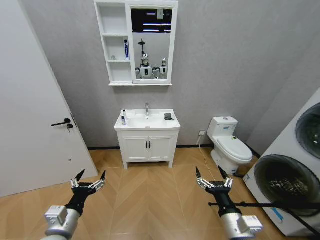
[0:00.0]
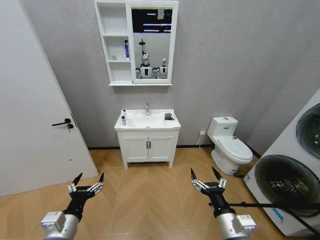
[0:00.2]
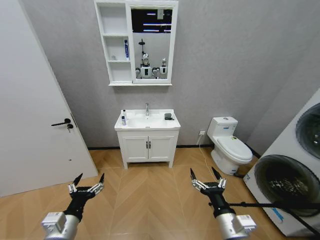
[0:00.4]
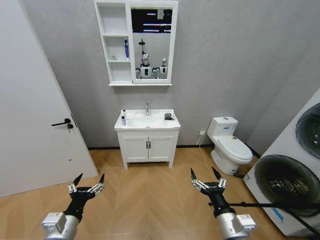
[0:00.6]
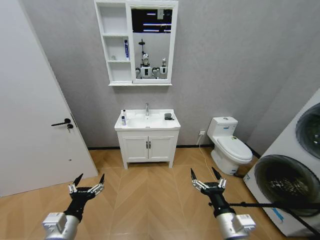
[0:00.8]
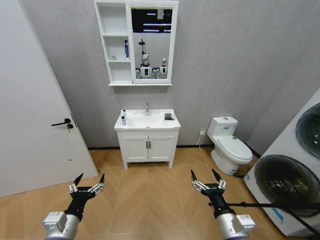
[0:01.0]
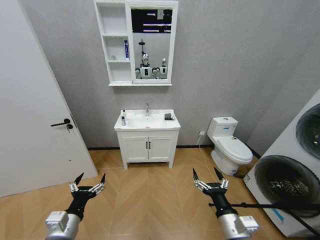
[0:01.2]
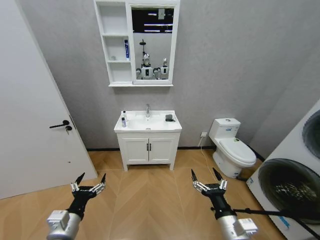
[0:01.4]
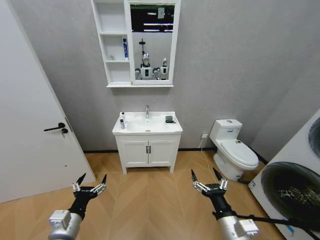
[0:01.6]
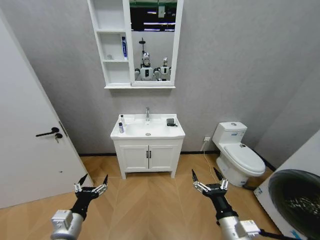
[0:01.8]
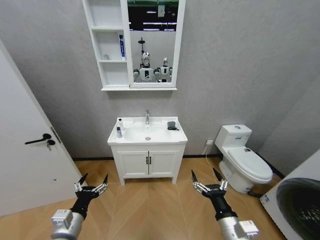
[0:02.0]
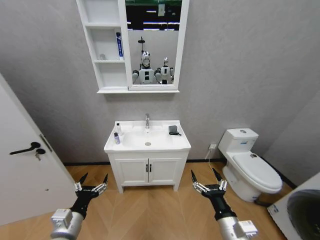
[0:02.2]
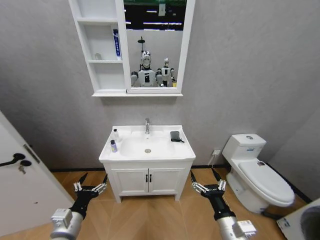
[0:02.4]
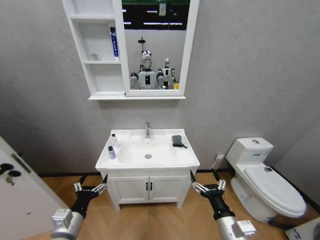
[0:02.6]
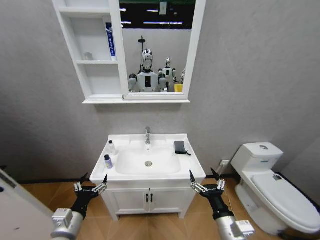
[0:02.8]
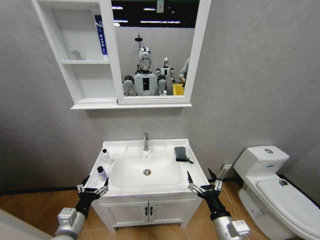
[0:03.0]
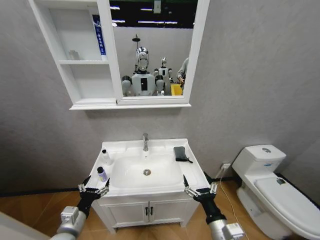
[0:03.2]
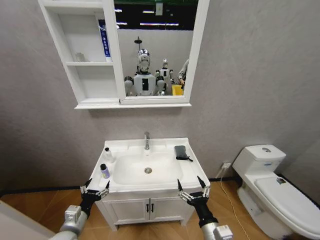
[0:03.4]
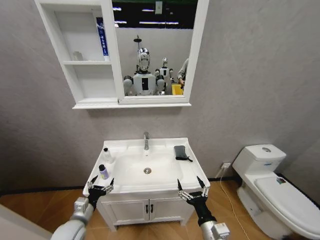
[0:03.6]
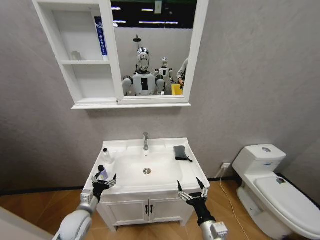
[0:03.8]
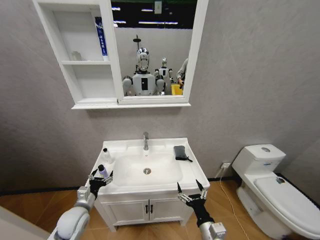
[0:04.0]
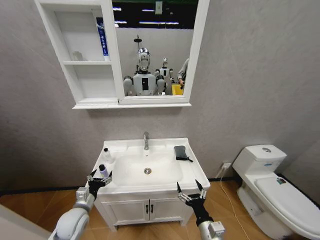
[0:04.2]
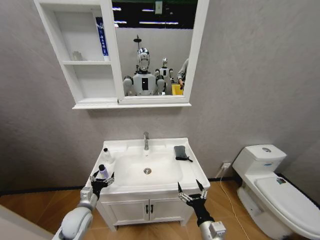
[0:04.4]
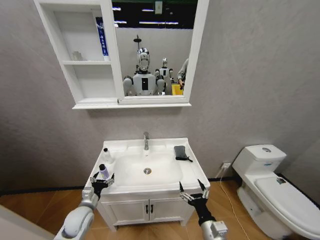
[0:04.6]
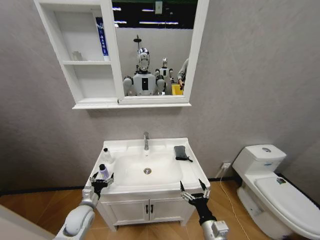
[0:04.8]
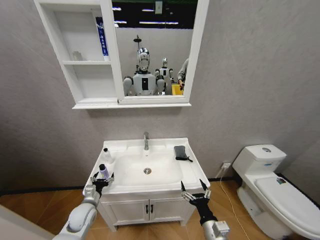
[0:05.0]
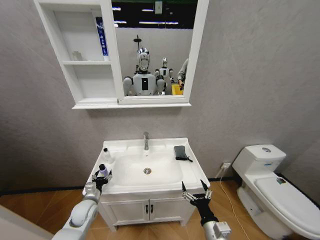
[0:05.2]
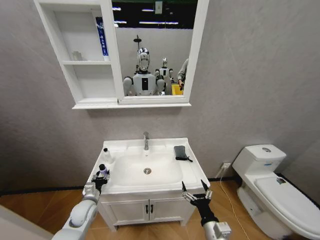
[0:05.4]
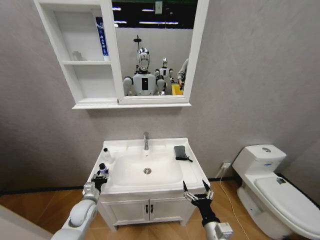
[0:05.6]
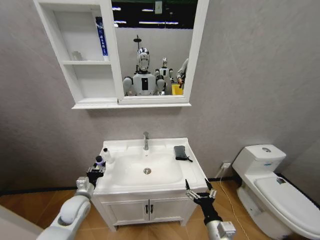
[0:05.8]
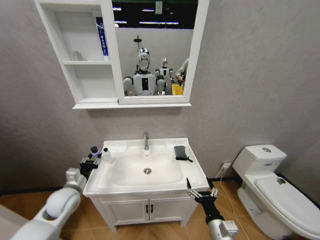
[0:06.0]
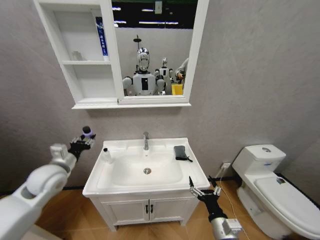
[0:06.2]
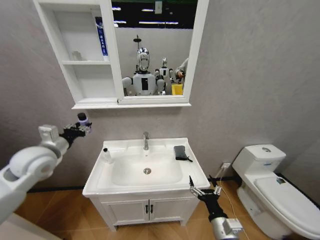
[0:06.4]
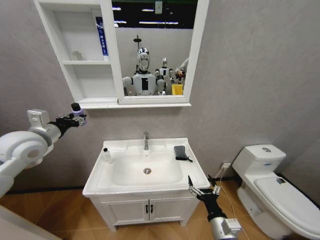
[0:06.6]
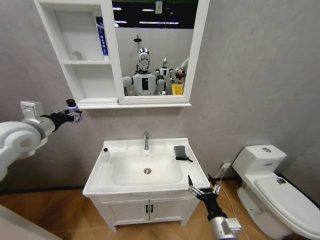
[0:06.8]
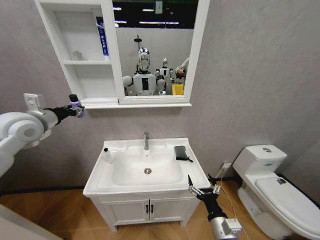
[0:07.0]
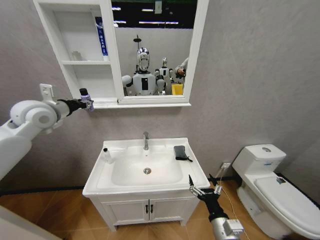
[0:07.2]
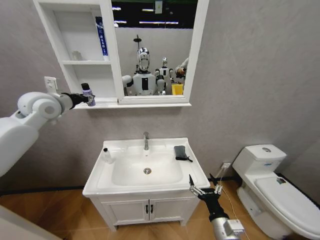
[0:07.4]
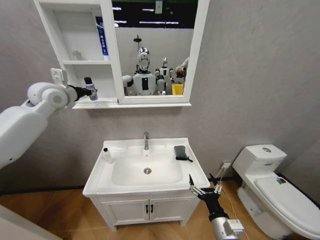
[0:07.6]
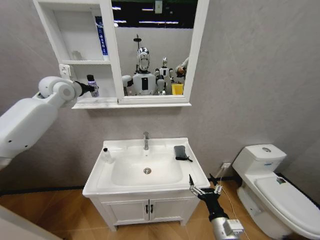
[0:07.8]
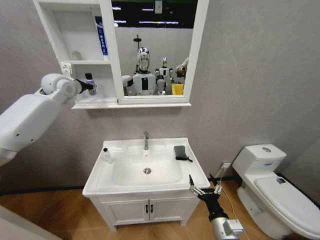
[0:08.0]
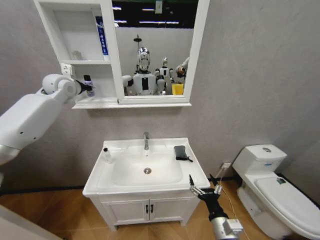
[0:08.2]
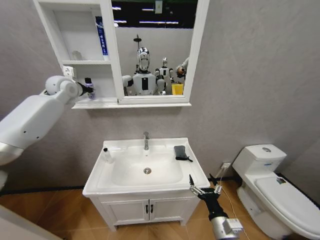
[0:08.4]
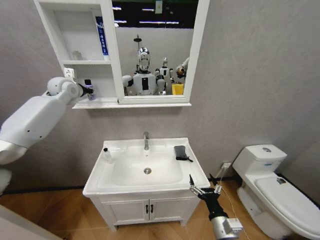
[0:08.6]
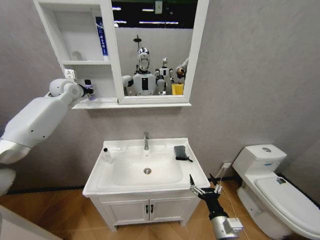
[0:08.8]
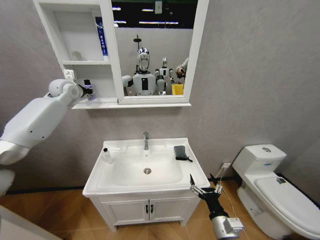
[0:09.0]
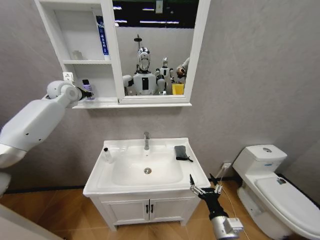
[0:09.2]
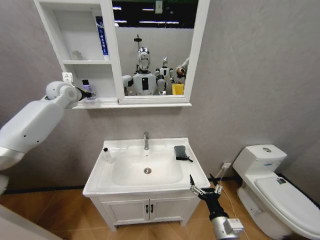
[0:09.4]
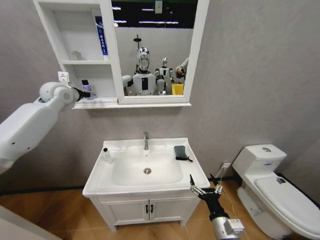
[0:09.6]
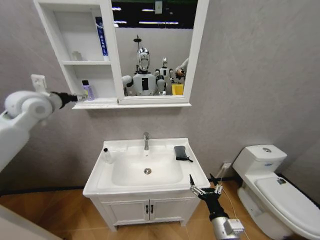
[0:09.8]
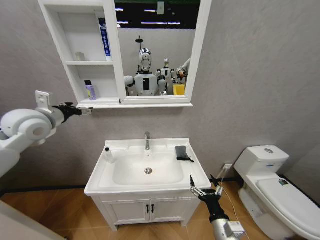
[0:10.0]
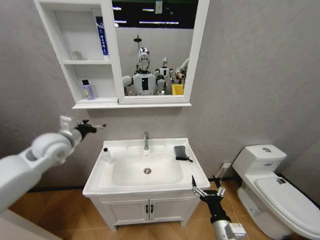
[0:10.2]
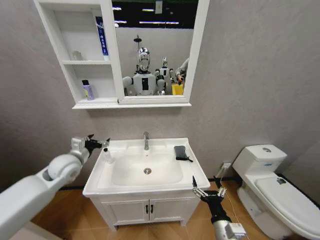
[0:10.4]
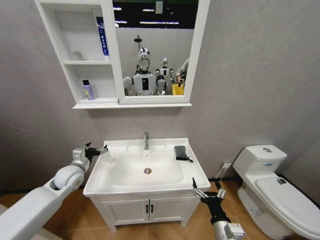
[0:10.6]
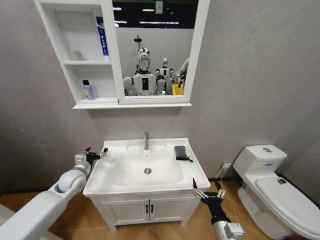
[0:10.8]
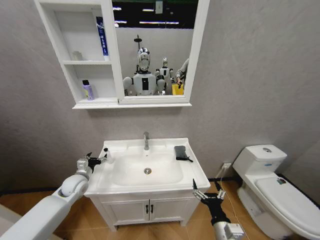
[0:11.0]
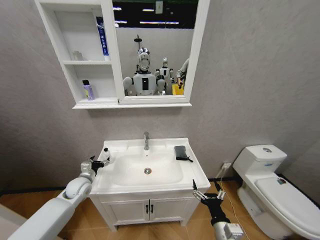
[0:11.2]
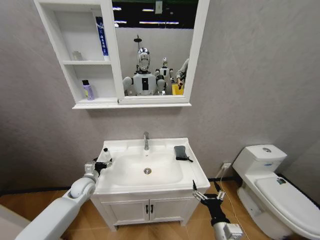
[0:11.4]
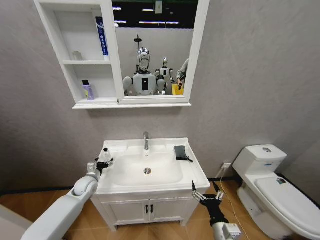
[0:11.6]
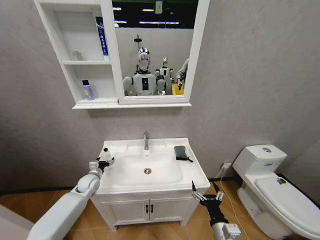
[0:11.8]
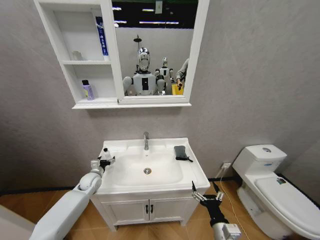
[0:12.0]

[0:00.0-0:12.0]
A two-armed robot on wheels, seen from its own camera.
Task of the whole recording: Move facial cleanser and shampoo from washbasin to cabinet, then wipe washbasin with towel.
0:03.0 to 0:04.4: The left gripper goes approximately 10 cm forward and downward, while the right gripper heads downward, covering roughly 5 cm.
0:04.4 to 0:06.0: The left gripper moves upward, approximately 5 cm, and closes.
0:06.0 to 0:07.6: The left gripper is displaced upward and forward by about 40 cm.
0:07.6 to 0:09.0: The left gripper travels forward by approximately 10 cm.
0:09.0 to 0:10.4: The left gripper shifts about 30 cm backward and downward, and opens up.
0:10.4 to 0:12.0: The left gripper is displaced downward by some 20 cm.

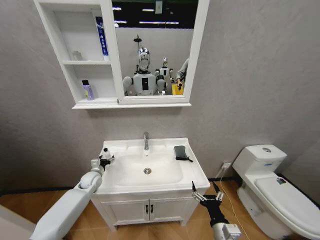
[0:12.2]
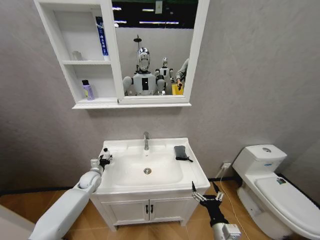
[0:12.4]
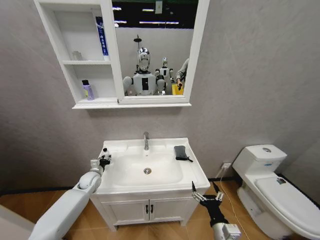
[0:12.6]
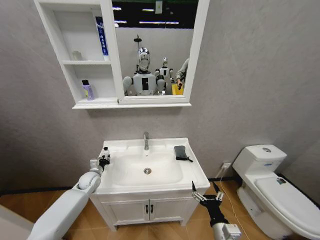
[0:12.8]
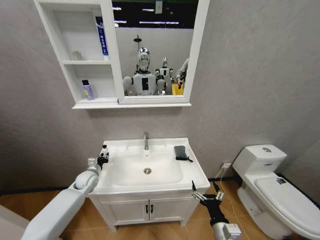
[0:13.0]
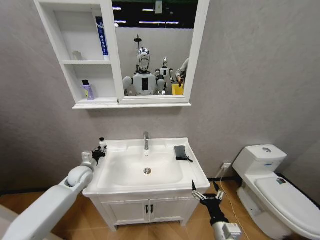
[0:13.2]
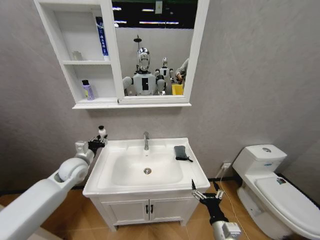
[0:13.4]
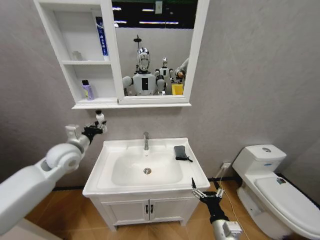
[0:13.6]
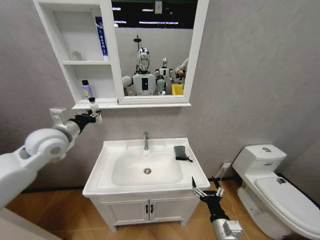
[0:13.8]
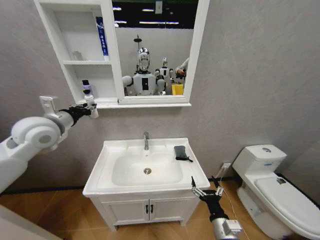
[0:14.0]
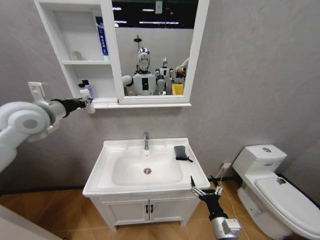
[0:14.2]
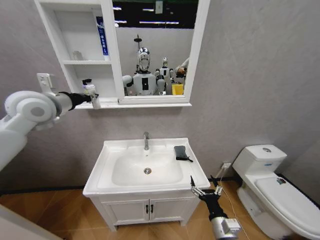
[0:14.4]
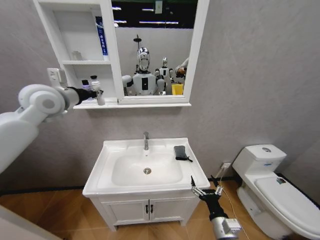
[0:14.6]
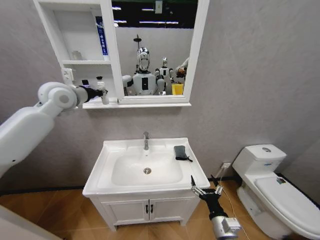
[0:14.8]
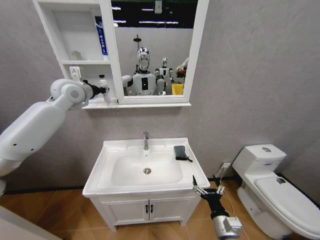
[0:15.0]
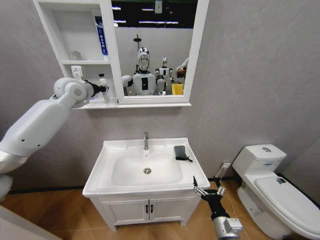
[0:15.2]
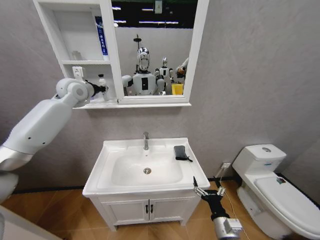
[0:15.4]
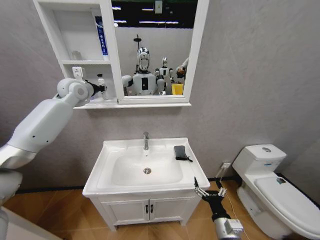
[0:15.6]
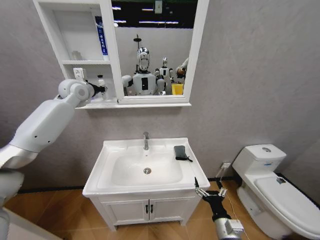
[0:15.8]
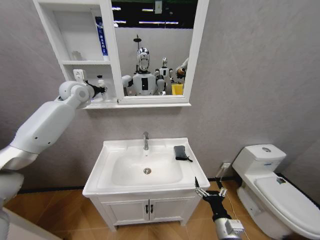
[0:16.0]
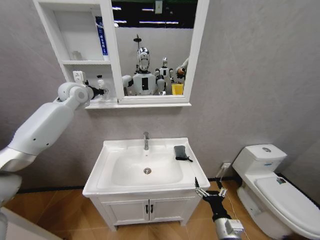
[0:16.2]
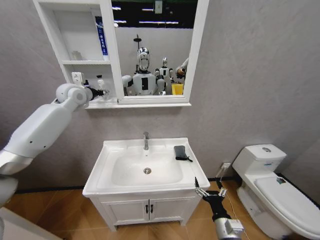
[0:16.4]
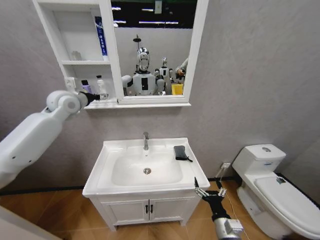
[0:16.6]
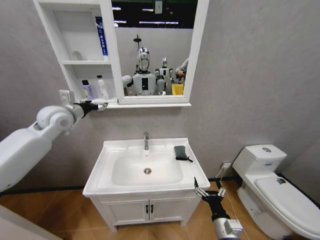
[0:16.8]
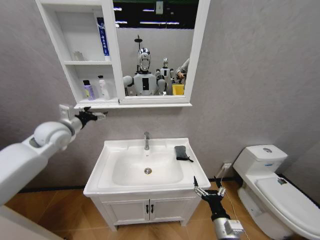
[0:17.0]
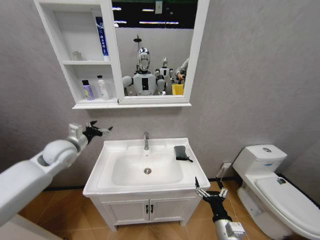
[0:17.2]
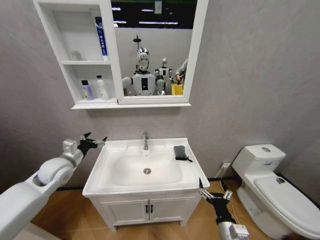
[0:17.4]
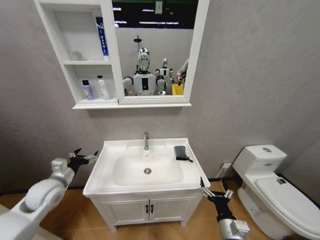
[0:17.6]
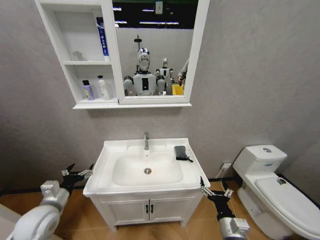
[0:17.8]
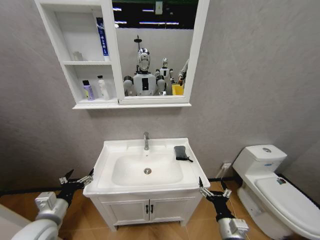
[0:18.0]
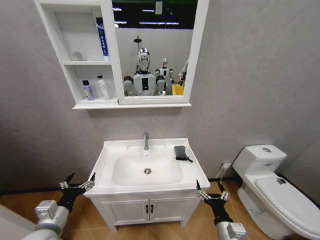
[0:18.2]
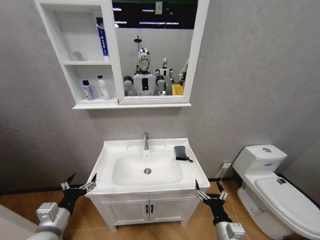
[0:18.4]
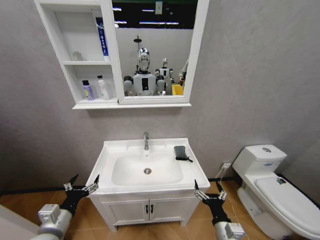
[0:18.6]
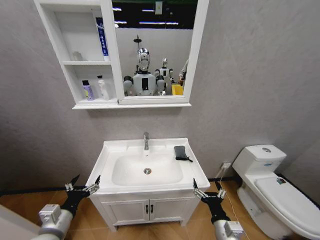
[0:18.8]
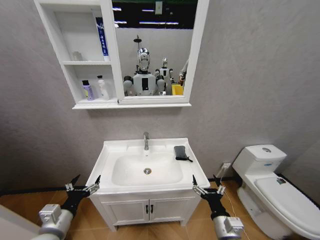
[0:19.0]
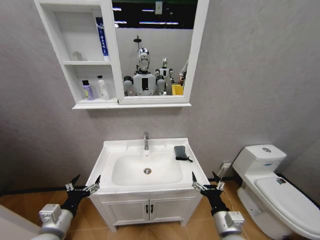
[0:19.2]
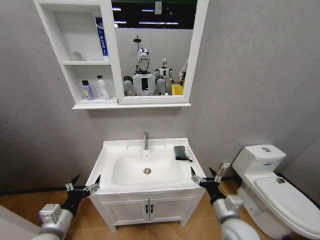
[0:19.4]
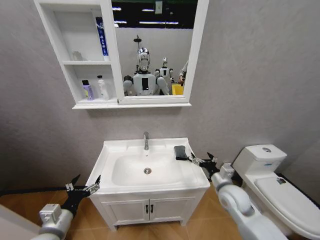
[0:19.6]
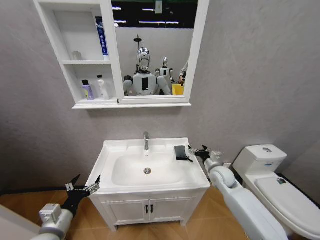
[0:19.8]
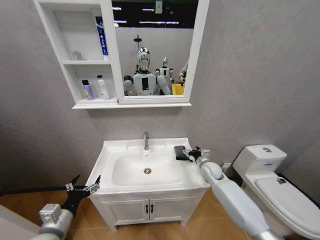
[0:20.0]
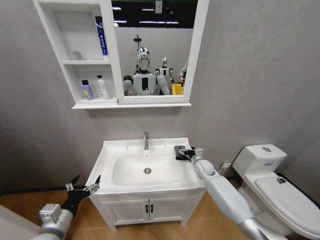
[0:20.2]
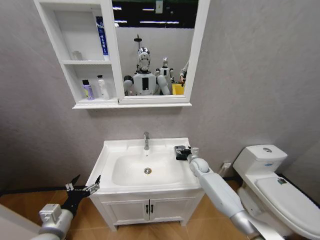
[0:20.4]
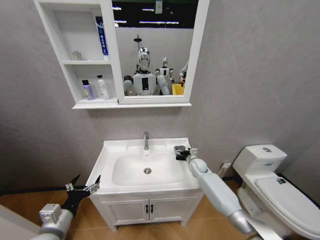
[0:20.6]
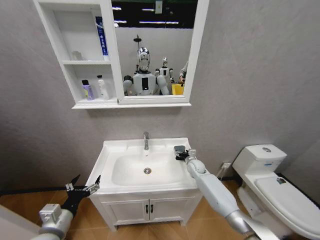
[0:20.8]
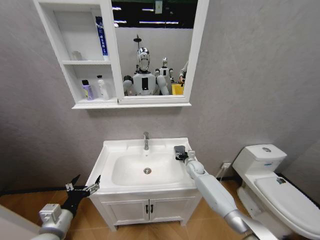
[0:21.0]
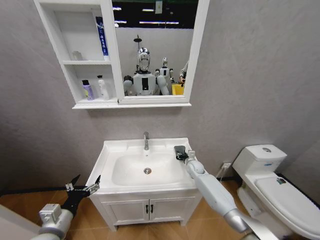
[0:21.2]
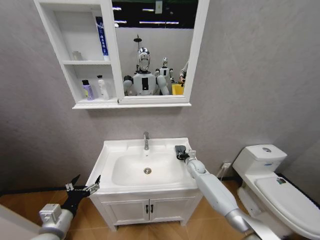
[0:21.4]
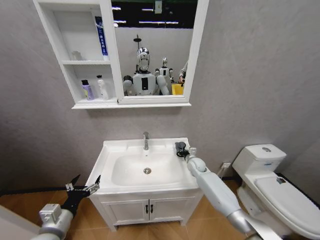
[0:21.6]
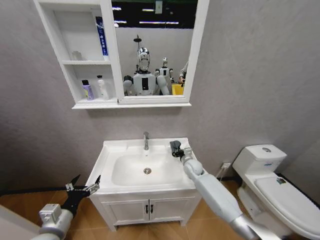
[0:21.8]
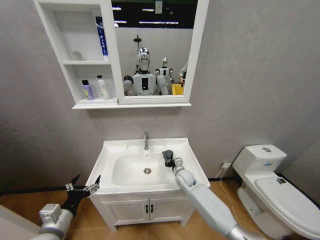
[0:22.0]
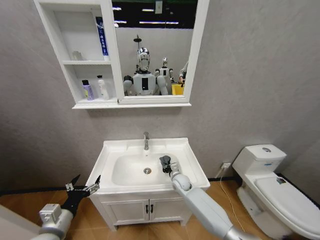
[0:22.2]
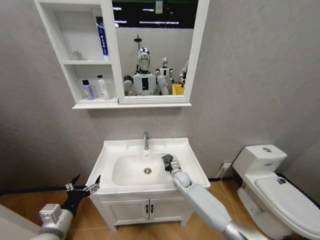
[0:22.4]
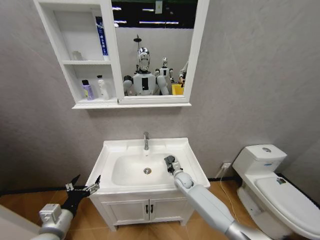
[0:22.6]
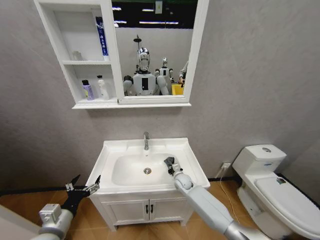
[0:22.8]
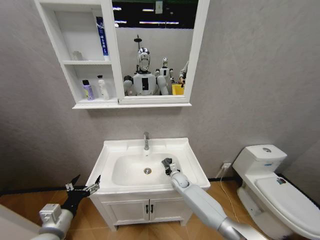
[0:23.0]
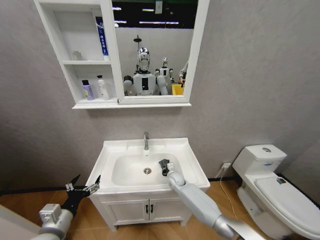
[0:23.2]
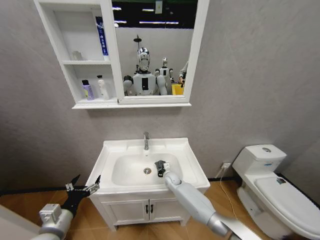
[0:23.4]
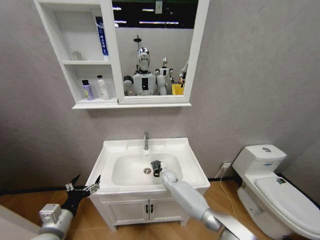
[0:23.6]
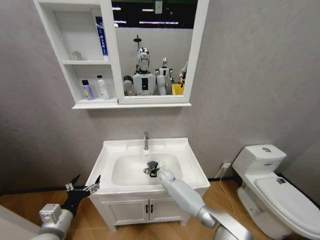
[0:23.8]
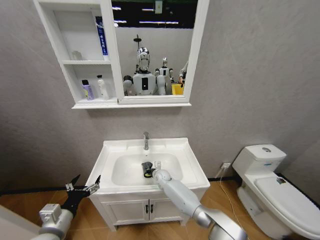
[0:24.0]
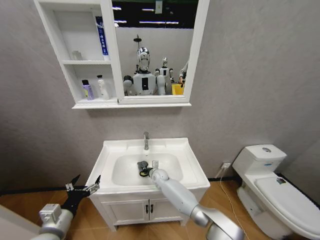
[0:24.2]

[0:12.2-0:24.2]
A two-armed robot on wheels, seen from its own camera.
Task of the whole recording: Move facial cleanser and shampoo from washbasin to cabinet, then wipe washbasin with towel.
0:12.2 to 0:13.8: The left gripper heads upward, covering some 30 cm, and closes its fingers.
0:13.8 to 0:15.2: The left gripper heads forward and upward, covering approximately 20 cm.
0:15.2 to 0:16.6: The left gripper opens its fingers.
0:16.6 to 0:18.2: The left gripper moves backward and downward, about 40 cm.
0:18.2 to 0:19.8: The right gripper moves forward, some 25 cm.
0:19.8 to 0:21.2: The right gripper travels forward, downward and to the left by approximately 20 cm, and closes its fingers.
0:21.2 to 0:22.6: The right gripper shifts about 10 cm to the left and backward, and closes up.
0:22.6 to 0:24.2: The right gripper moves to the left, roughly 10 cm.
